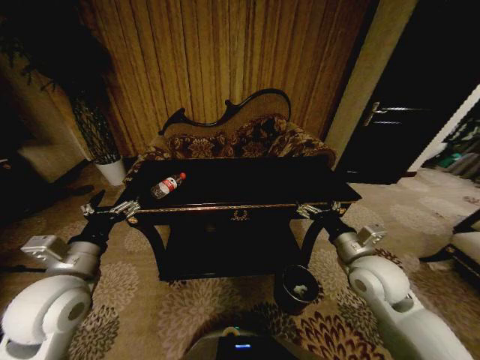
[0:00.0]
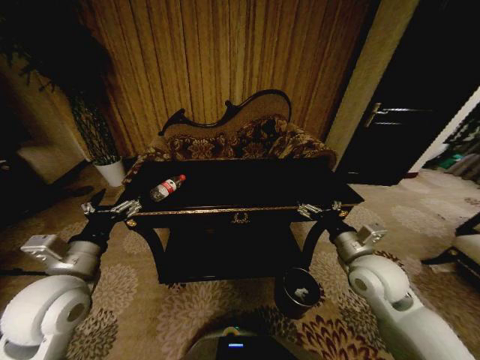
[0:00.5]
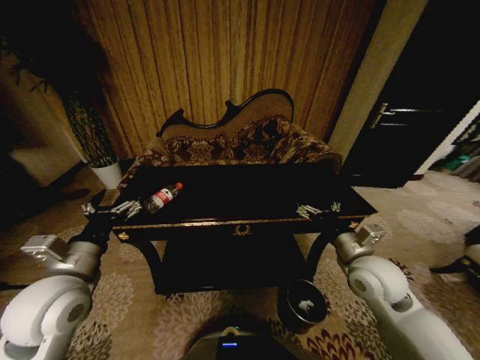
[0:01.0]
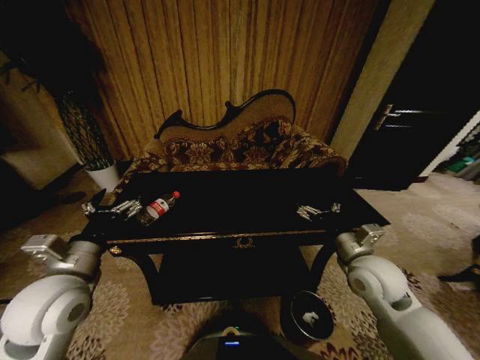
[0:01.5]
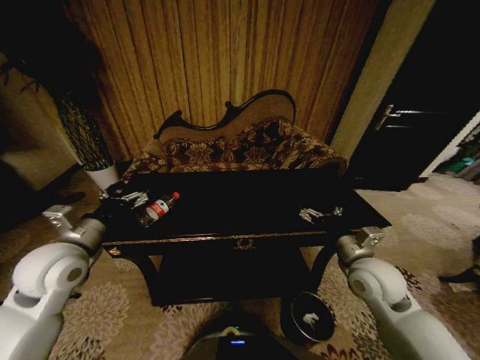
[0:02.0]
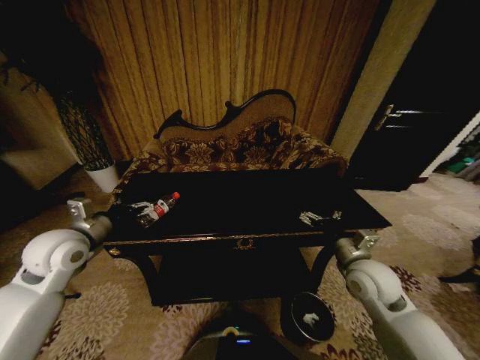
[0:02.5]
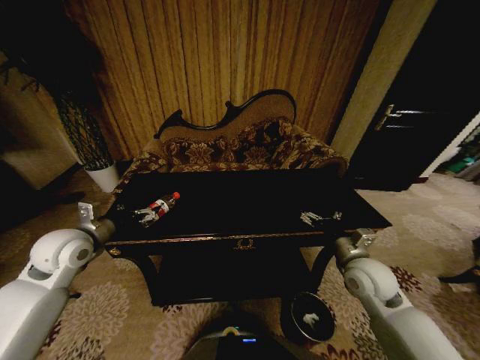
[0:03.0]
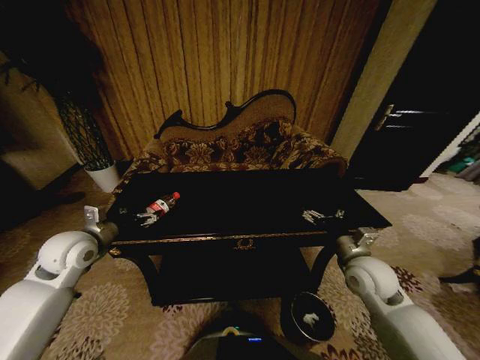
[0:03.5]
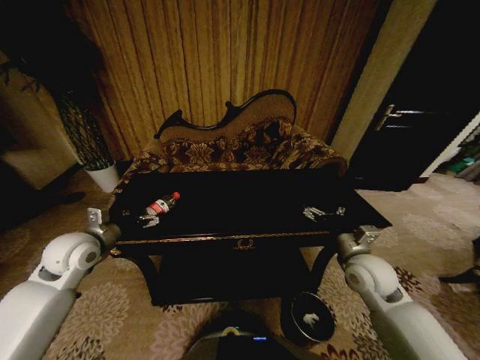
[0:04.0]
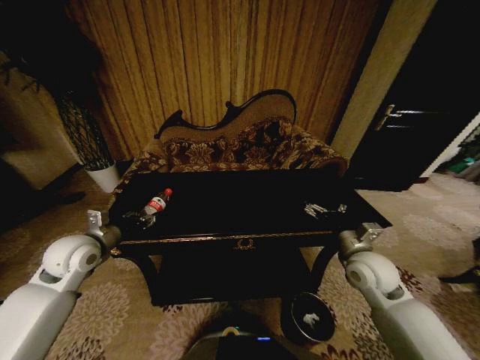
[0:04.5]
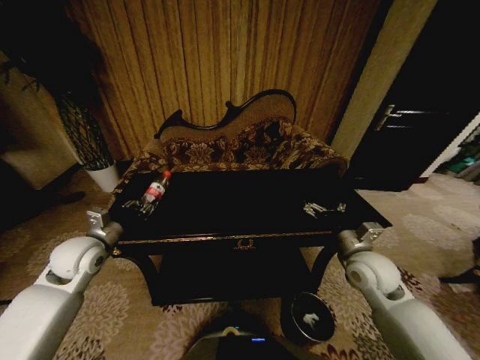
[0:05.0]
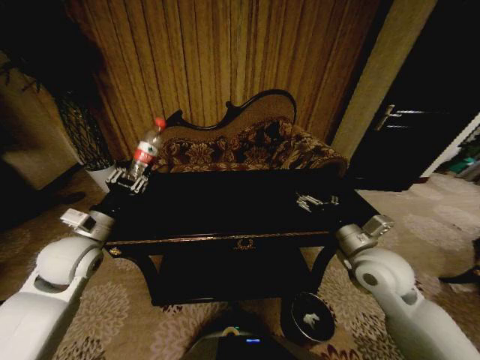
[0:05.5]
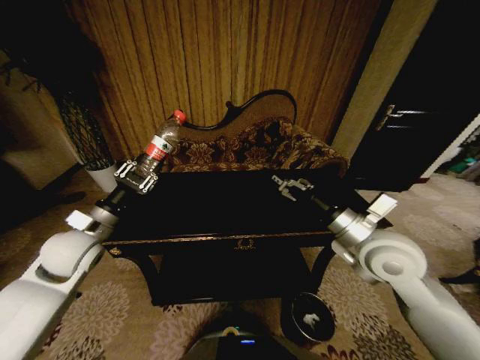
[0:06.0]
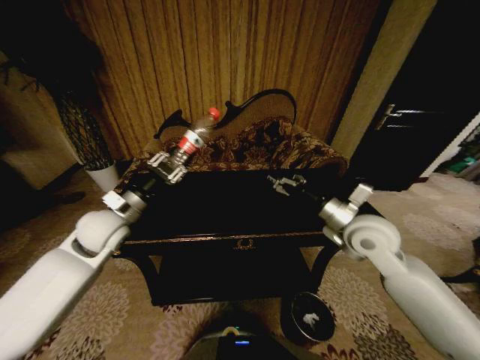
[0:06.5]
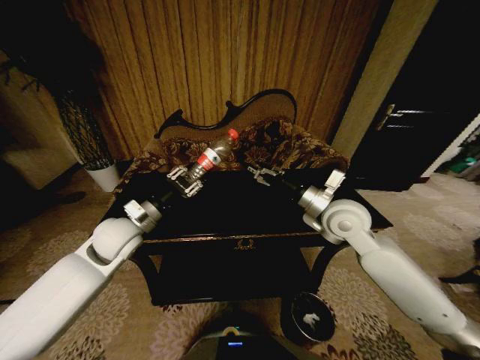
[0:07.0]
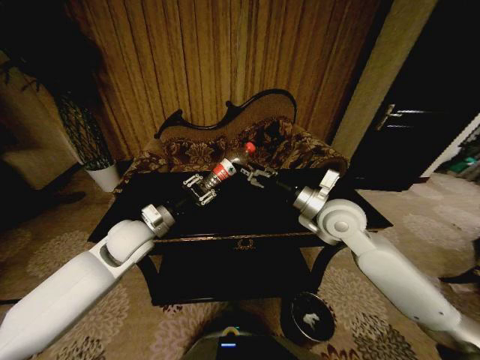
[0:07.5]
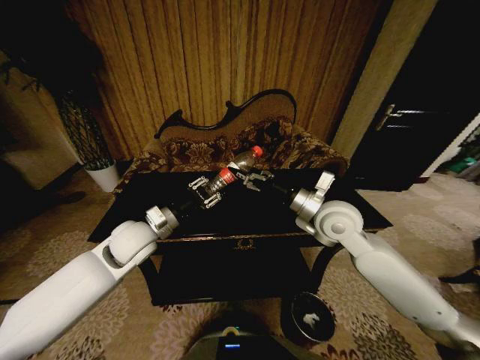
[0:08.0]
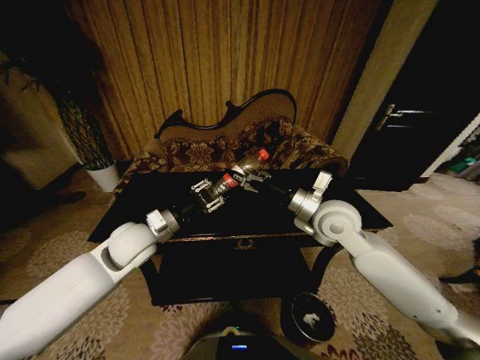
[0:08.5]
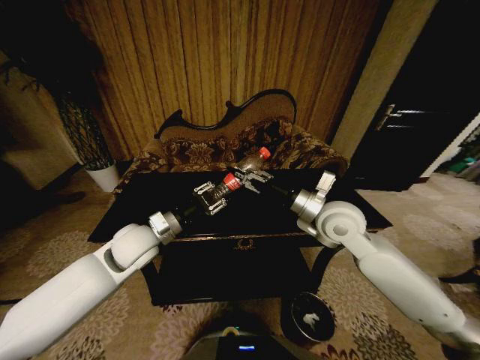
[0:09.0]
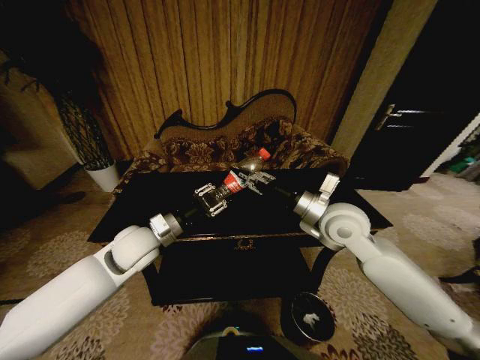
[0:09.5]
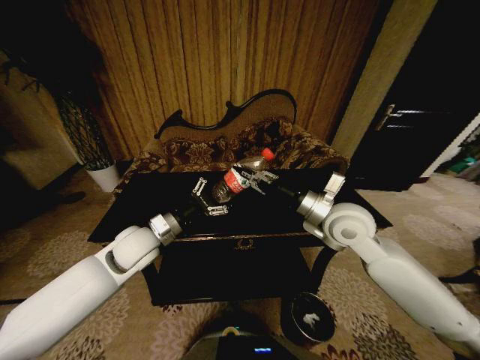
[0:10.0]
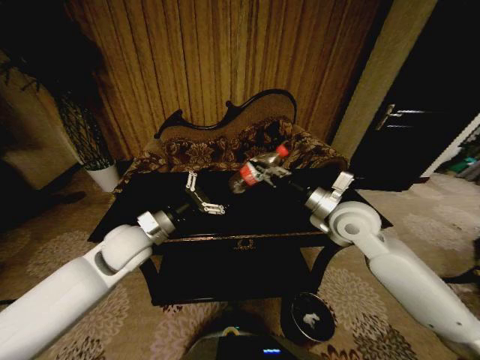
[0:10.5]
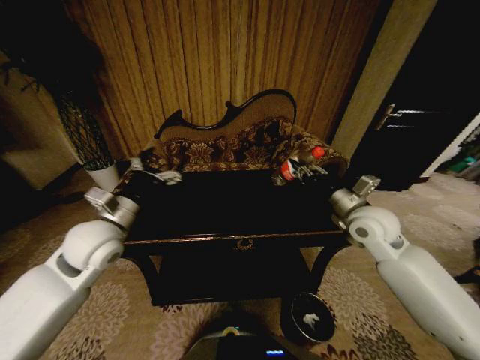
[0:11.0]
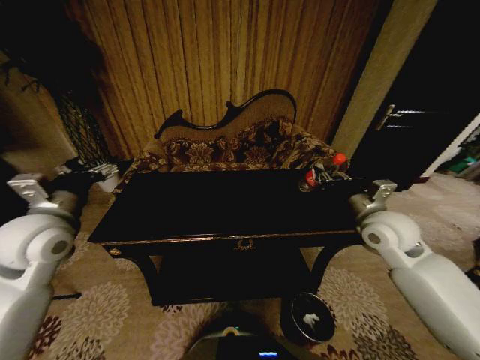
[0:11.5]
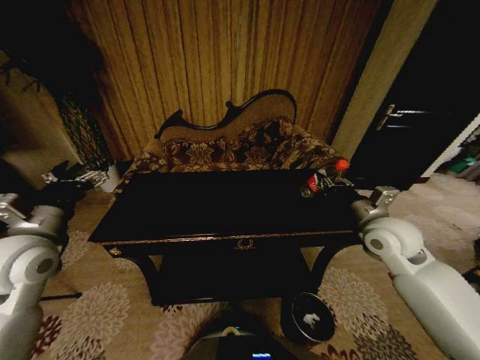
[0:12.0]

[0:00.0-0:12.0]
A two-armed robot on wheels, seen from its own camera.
Task of the whole recording: Move to the front of the table and place the trash on the table into the trash bin.
0:00.0 to 0:02.0: The left gripper goes roughly 5 cm forward.
0:02.0 to 0:04.0: The left gripper heads forward, covering roughly 5 cm.
0:04.0 to 0:06.0: The right gripper moves upward and to the left, about 15 cm, while the left gripper closes.
0:06.0 to 0:08.0: The right gripper shifts roughly 10 cm forward; the left gripper shifts about 10 cm to the right.
0:08.0 to 0:10.0: The right gripper closes up; the left gripper opens up.
0:10.0 to 0:12.0: The left gripper heads to the left, upward and backward, covering approximately 20 cm, and opens. The right gripper shifts roughly 10 cm to the right.

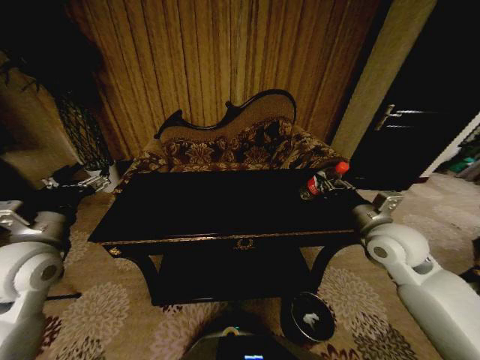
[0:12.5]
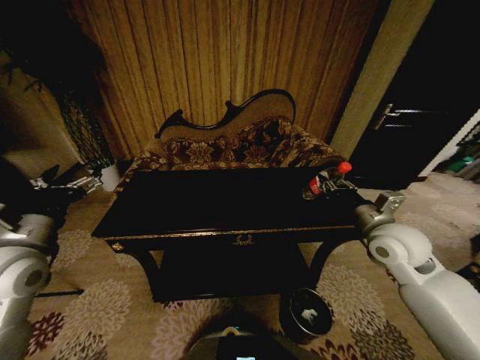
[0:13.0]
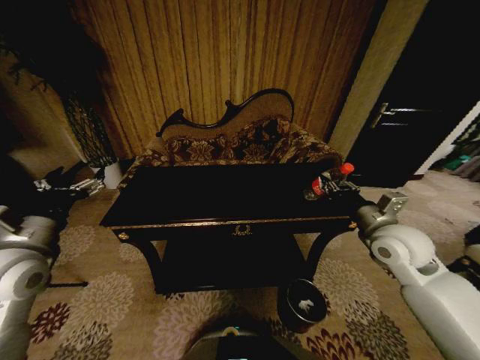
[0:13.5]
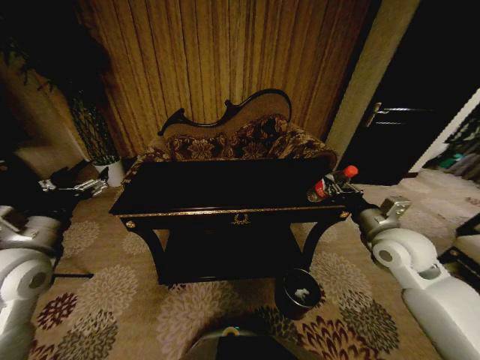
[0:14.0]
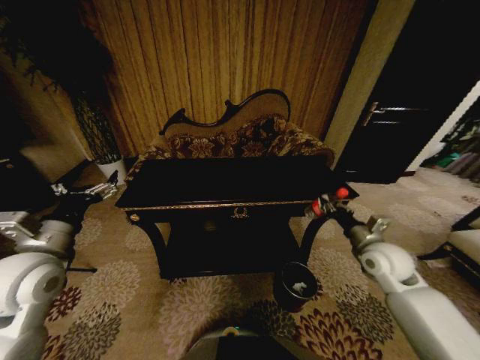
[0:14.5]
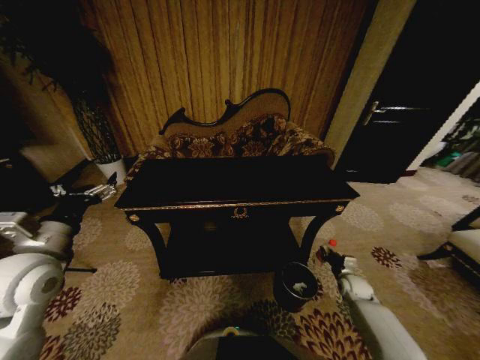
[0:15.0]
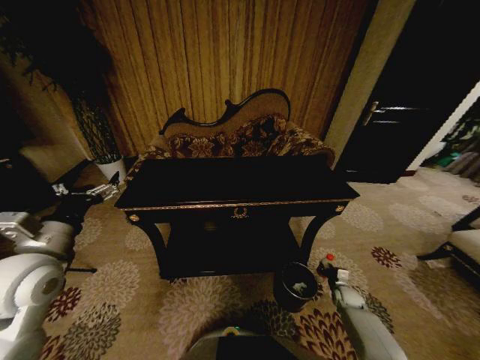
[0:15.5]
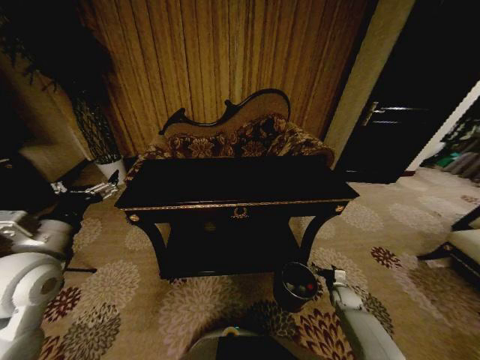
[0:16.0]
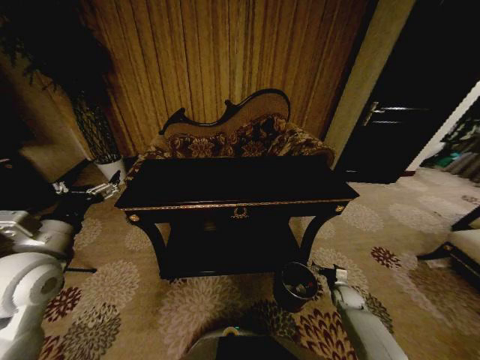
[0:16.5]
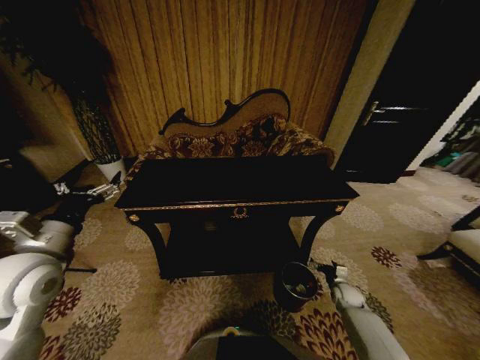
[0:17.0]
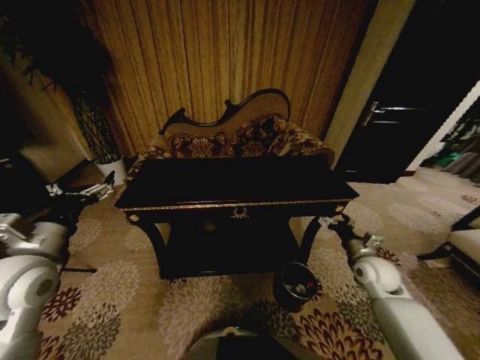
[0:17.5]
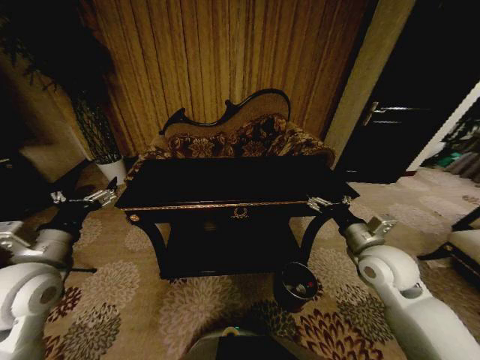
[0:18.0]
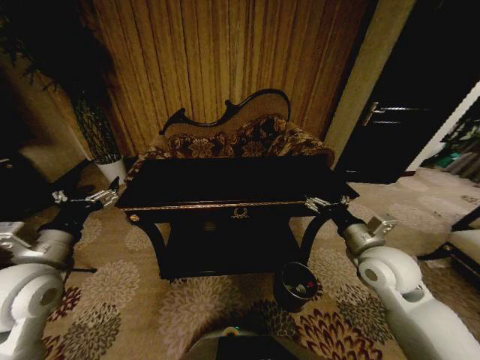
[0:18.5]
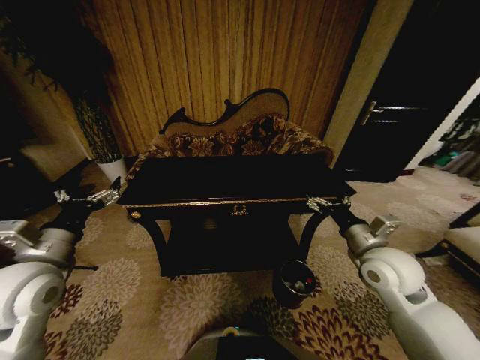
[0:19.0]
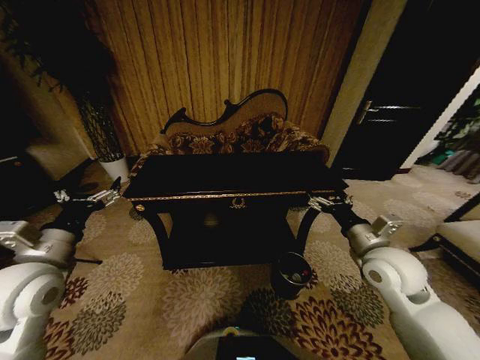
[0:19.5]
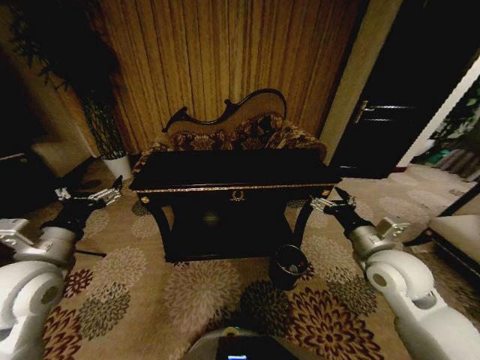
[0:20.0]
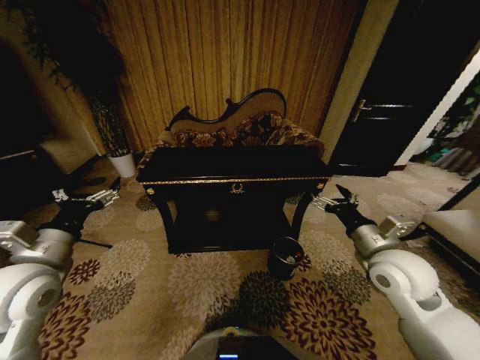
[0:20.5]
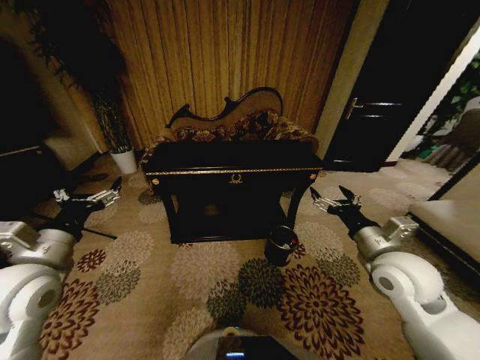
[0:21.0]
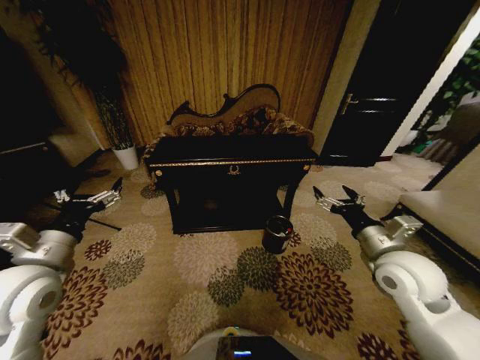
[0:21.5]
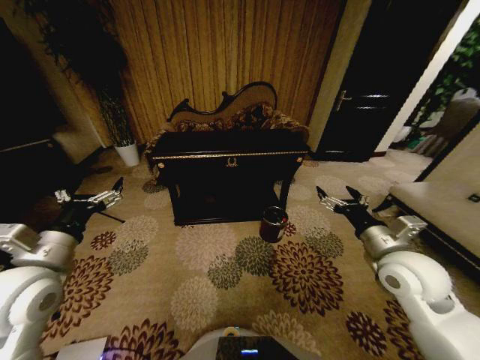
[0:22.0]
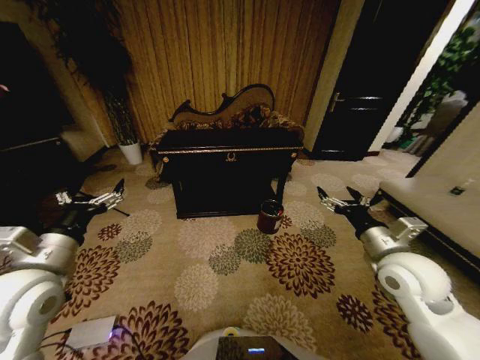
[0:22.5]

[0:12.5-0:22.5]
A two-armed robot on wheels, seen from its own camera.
Task of the whole recording: Move to the front of the table and place the trash on the table into the trash bin.
0:12.5 to 0:14.5: The right gripper moves downward, some 10 cm.
0:14.5 to 0:16.5: The right gripper moves downward, about 30 cm, and opens its fingers.
0:16.5 to 0:18.5: The right gripper travels upward by approximately 35 cm.

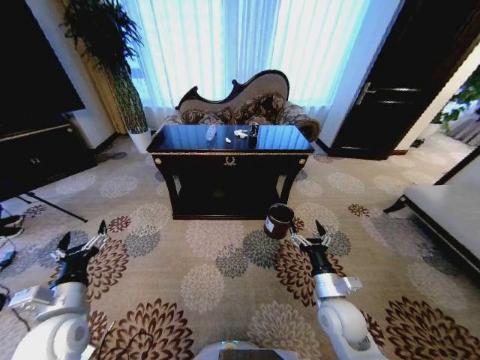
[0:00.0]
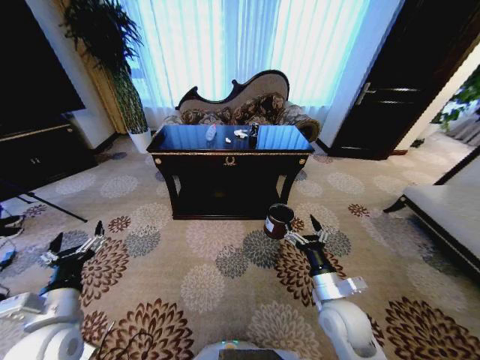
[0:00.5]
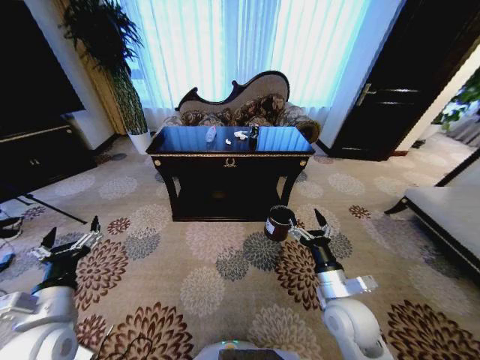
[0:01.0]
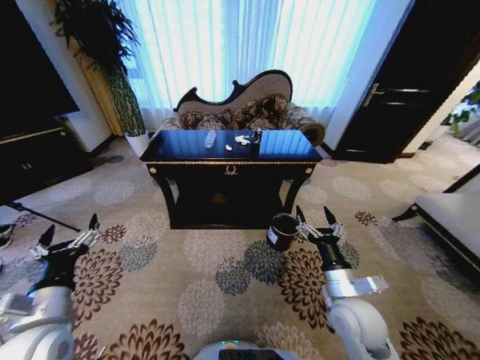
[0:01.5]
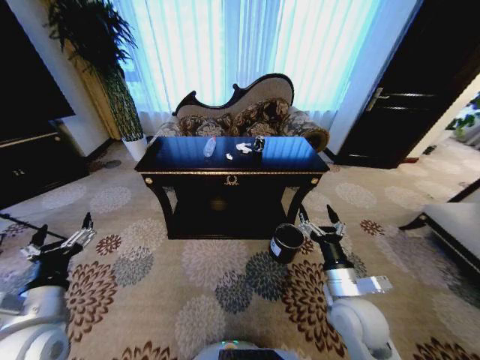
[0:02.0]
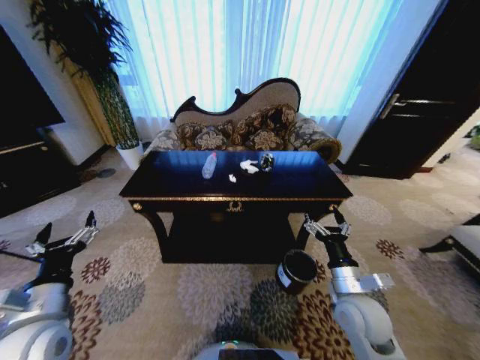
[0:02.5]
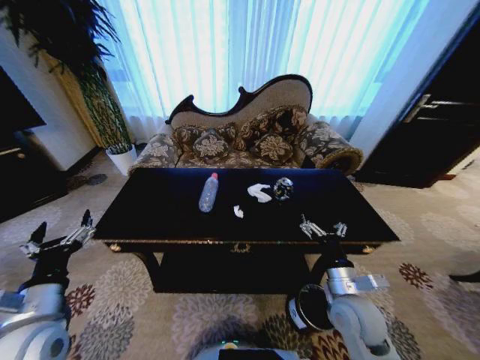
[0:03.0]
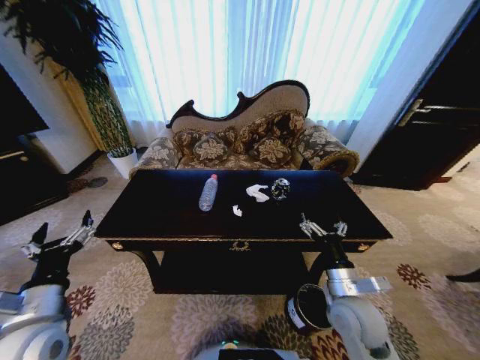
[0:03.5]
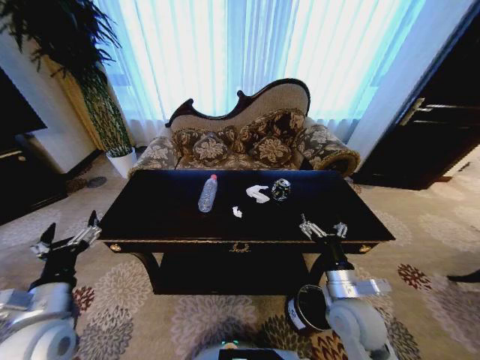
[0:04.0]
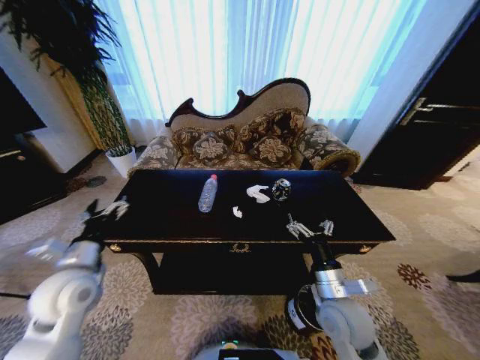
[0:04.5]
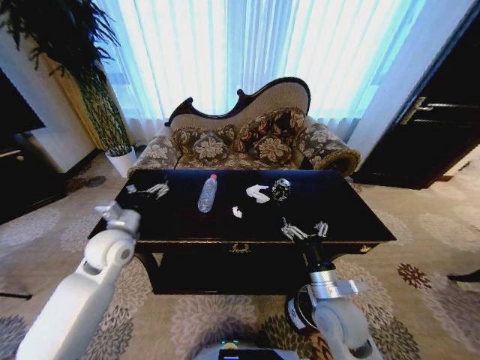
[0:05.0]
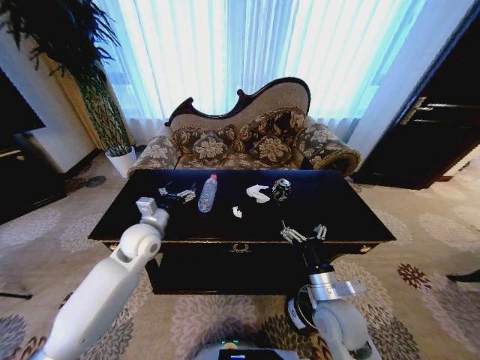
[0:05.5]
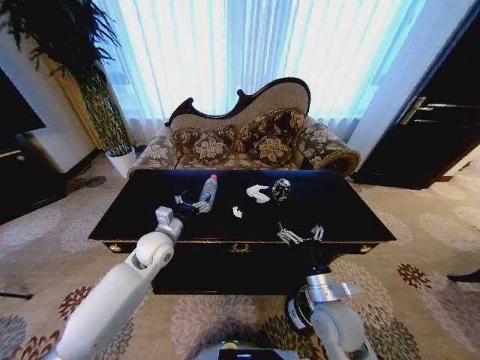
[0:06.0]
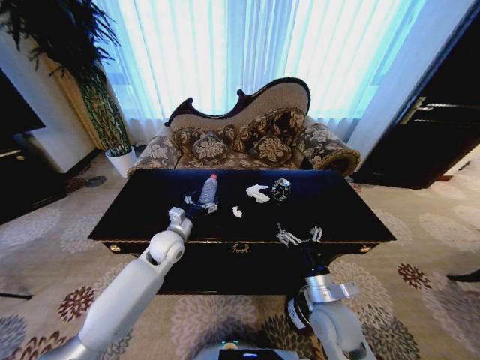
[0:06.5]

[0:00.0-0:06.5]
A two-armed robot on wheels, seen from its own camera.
Task of the whole recording: Move to the front of the table and place the trash on the table into the trash bin.
0:02.0 to 0:04.5: The left gripper shifts some 10 cm forward.
0:04.5 to 0:06.5: The left gripper heads forward, to the right and downward, covering about 20 cm.
